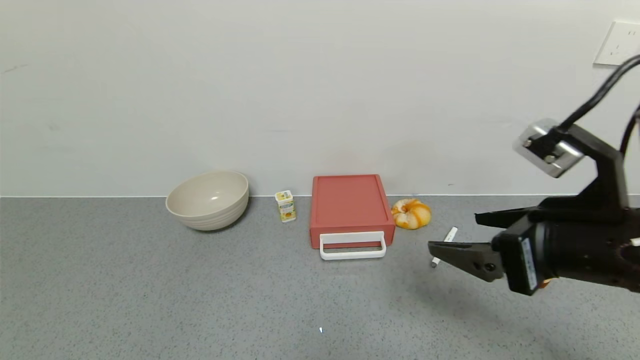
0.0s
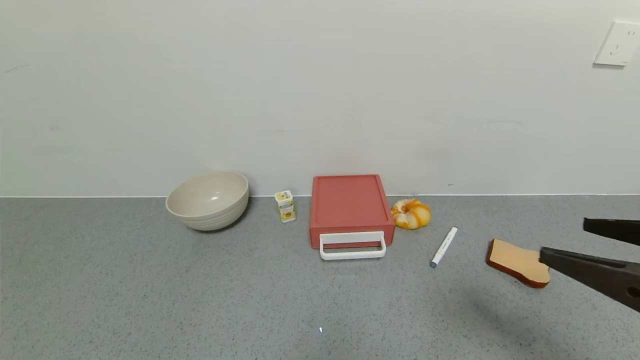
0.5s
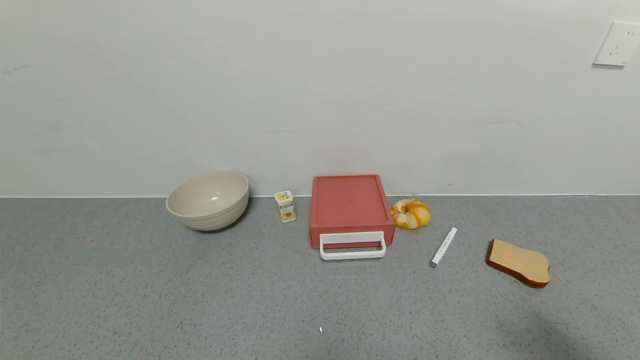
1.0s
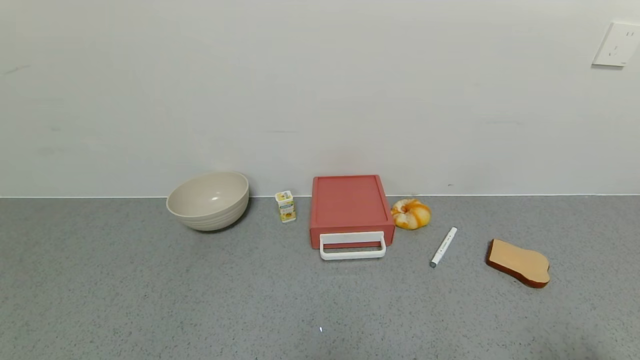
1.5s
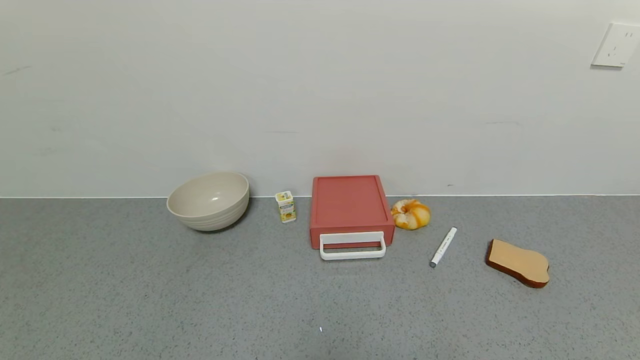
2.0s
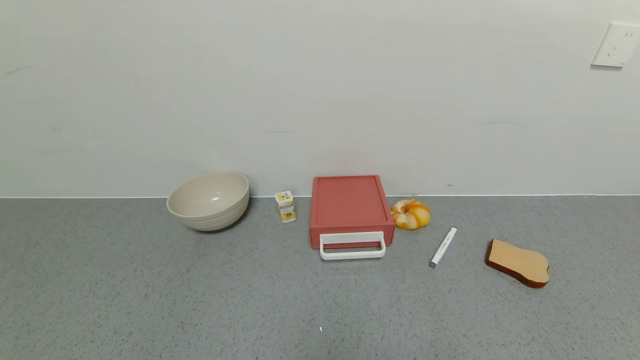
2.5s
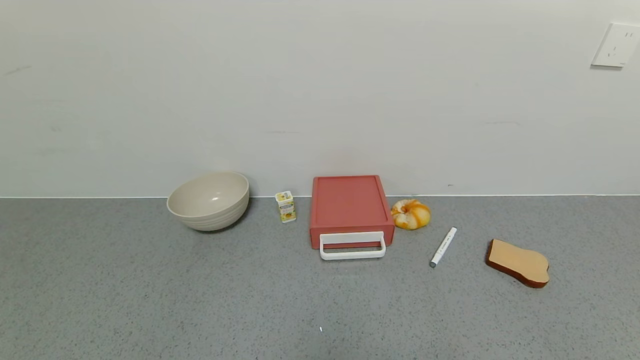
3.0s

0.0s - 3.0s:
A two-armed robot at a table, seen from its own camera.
Task of the whole recording: use the gripper to open the drawer and close the red drawer.
0.0s - 1.5s: The right gripper heads backward and to the right, covering approximately 25 cm.
